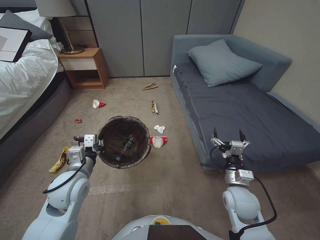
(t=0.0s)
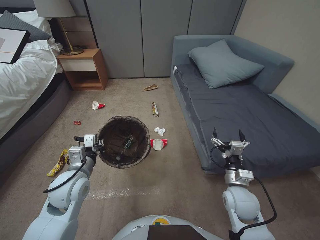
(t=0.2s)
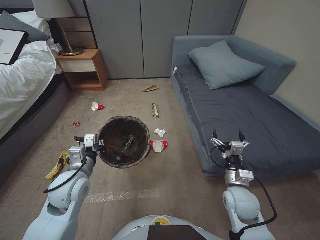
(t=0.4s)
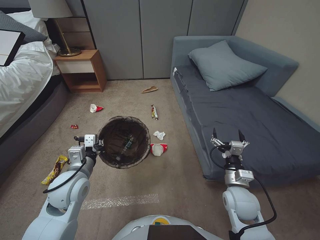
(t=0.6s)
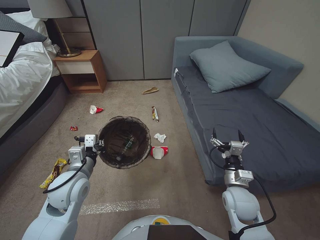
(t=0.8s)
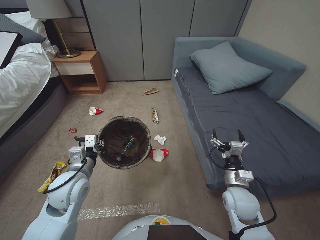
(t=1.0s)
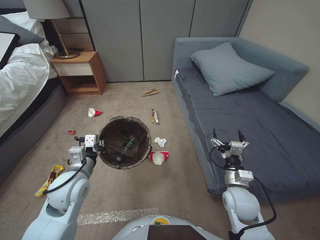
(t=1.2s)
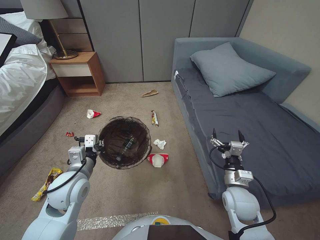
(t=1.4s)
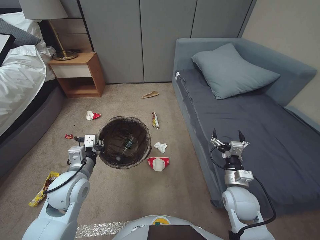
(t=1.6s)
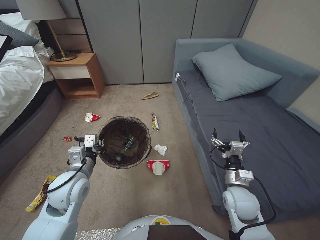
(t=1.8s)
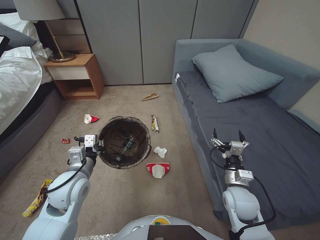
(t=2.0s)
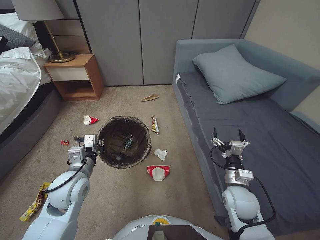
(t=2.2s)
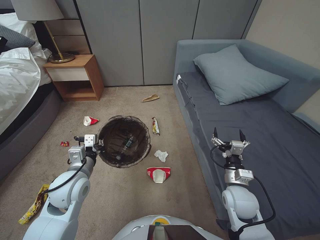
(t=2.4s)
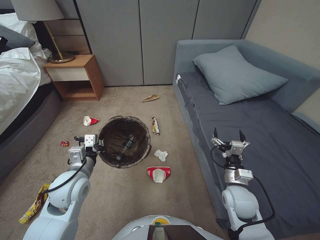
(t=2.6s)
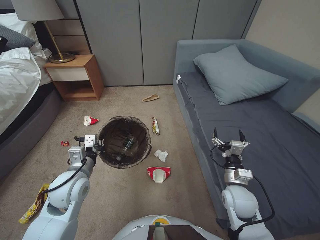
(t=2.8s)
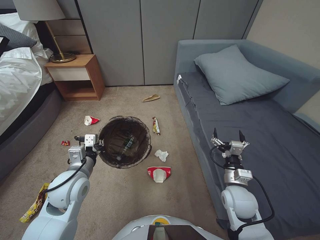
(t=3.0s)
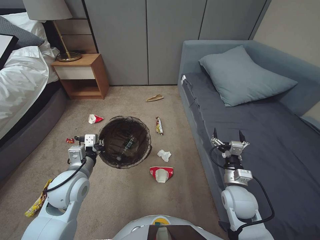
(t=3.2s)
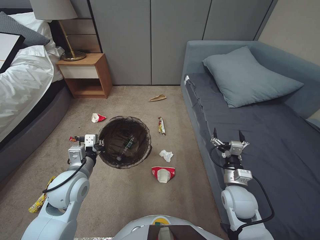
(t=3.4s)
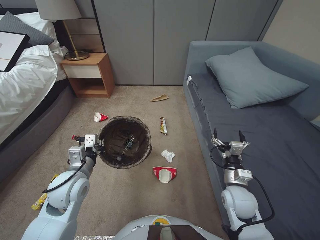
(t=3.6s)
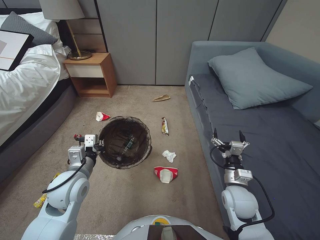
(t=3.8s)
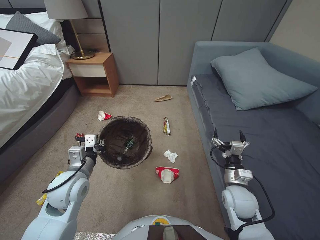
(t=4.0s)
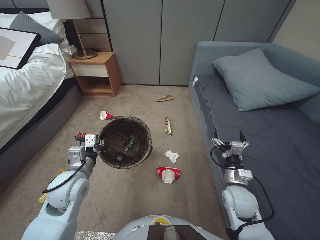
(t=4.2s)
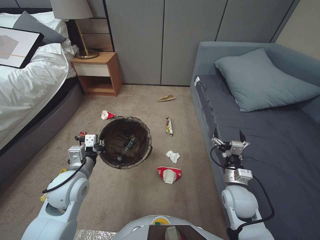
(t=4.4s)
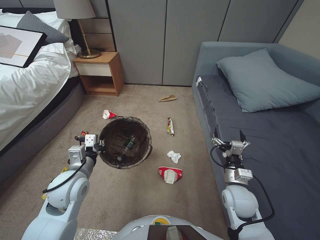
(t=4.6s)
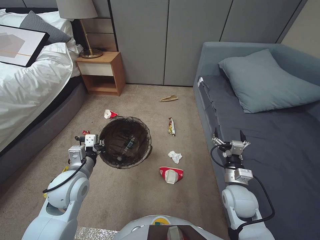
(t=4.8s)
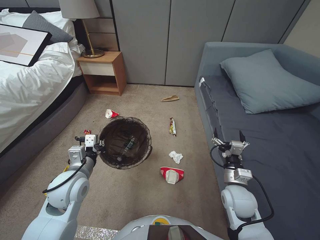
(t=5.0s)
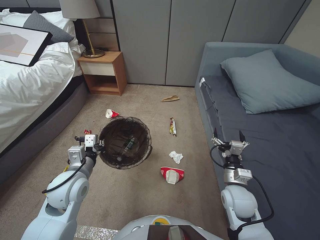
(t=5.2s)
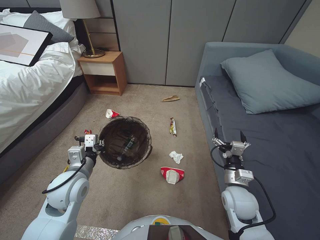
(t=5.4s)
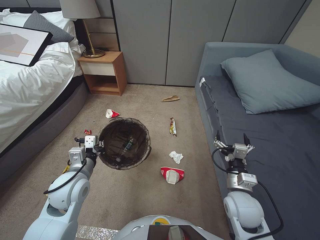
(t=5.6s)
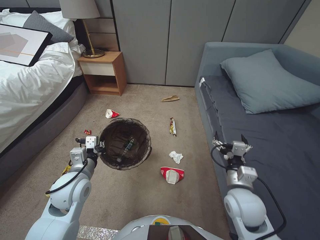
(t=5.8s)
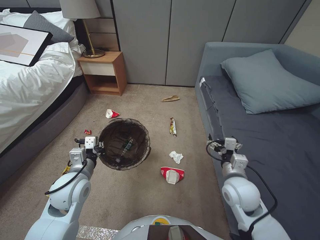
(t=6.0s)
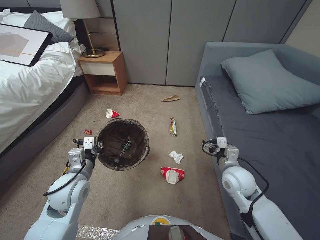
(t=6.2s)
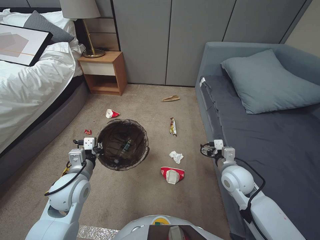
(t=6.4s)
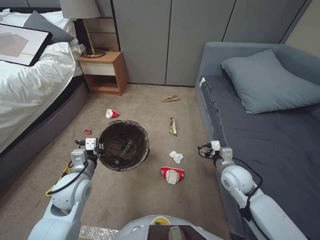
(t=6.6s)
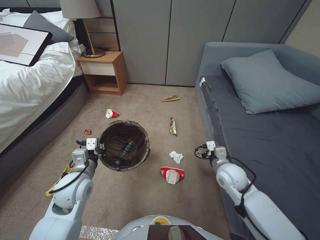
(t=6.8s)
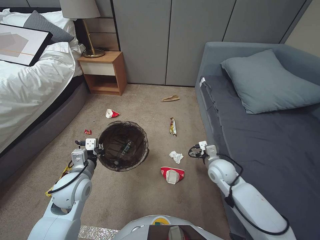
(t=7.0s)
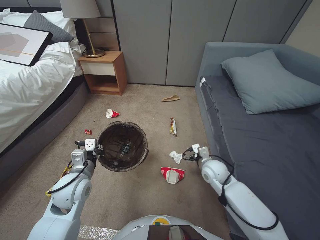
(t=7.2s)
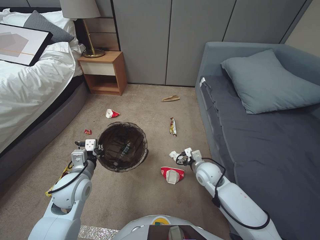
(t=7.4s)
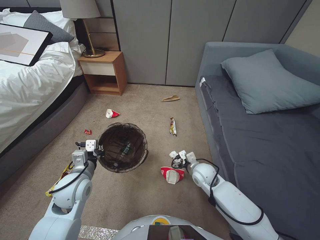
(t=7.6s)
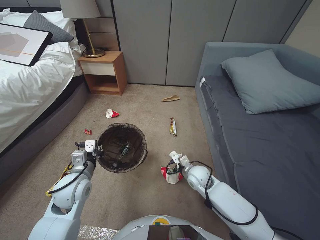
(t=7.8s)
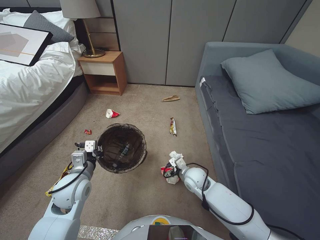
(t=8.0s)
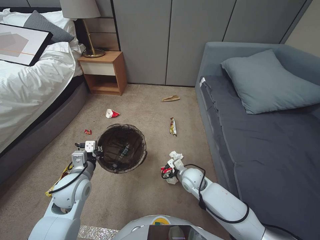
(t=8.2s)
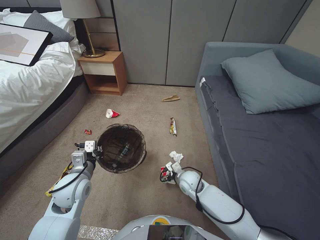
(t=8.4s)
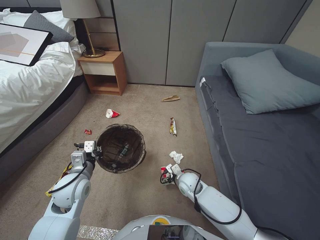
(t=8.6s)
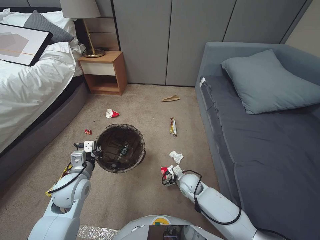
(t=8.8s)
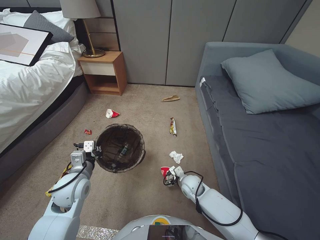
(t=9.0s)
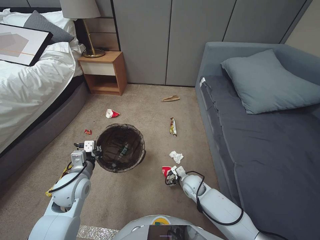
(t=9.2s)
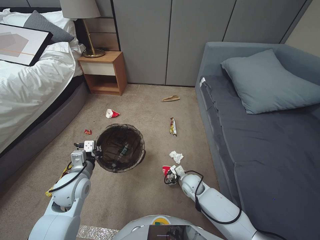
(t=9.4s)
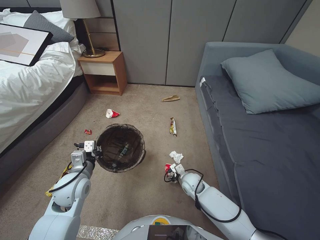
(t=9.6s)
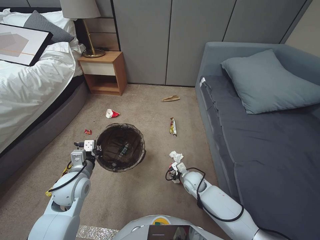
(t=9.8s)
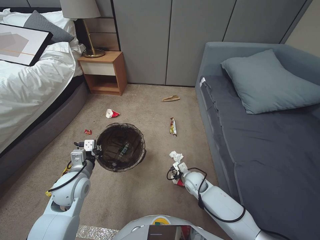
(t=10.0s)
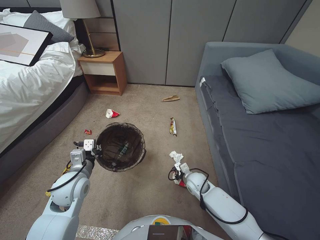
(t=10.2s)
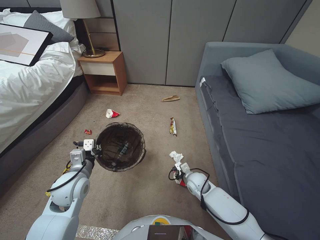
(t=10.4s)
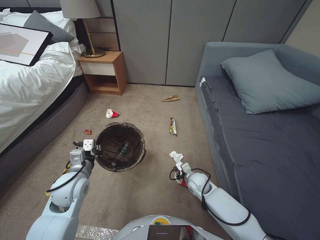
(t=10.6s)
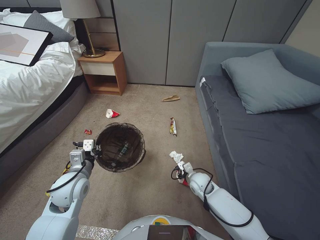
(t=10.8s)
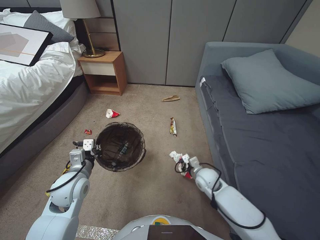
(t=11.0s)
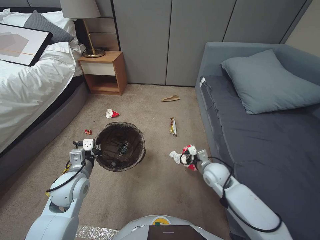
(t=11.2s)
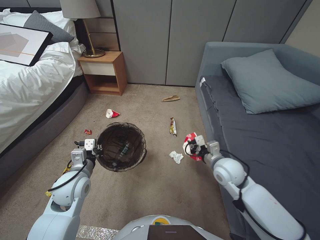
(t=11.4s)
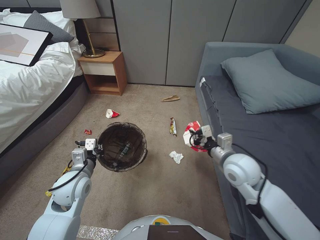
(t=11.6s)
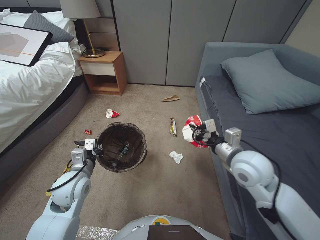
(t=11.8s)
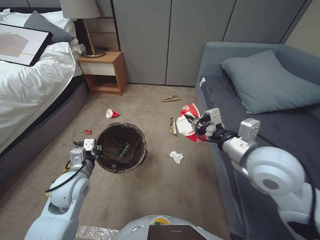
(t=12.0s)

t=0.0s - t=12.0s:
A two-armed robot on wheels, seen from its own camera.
Task of the whole recording: Pick up the trash bin, then pick up the garbage from the floor and place it into the trash bin.
t=0.0s - t=3.0s: Both grippers stay about where they are.
t=4.4s - t=6.0s: The right gripper goes some 5 cm upward.
t=6.0s - t=7.6s: The right gripper heads forward, downward and to the left, covering some 15 cm.
t=7.6s - t=9.0s: The right gripper moves downward, some 10 cm.
t=9.0s - t=10.4s: The right gripper closes.
t=10.4s - t=12.0s: The right gripper goes roughly 35 cm upward.

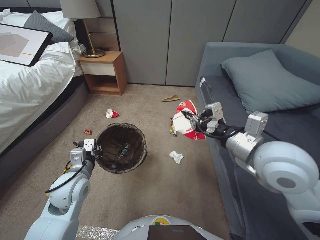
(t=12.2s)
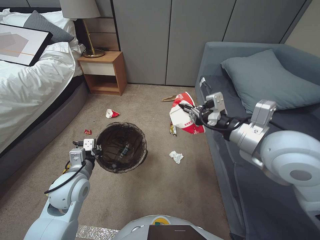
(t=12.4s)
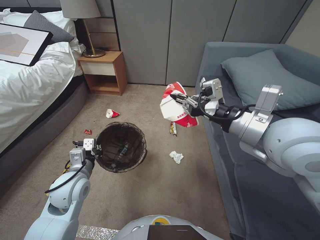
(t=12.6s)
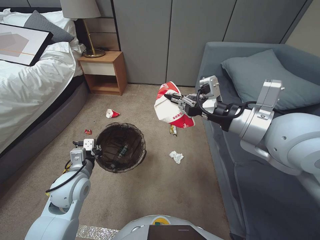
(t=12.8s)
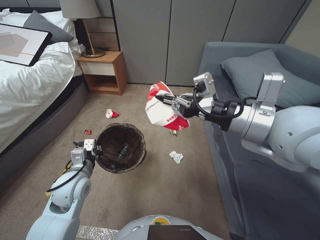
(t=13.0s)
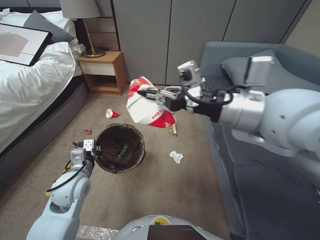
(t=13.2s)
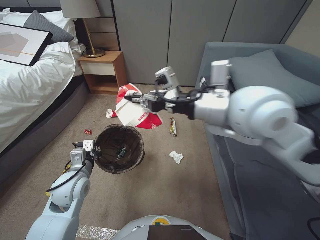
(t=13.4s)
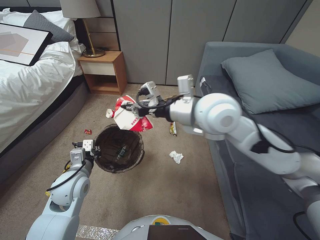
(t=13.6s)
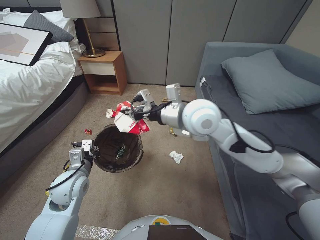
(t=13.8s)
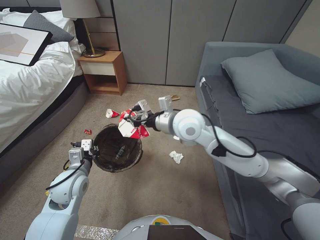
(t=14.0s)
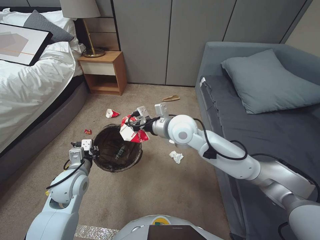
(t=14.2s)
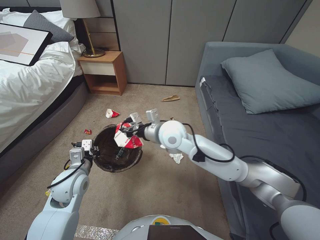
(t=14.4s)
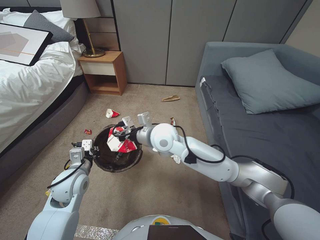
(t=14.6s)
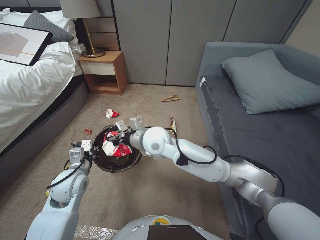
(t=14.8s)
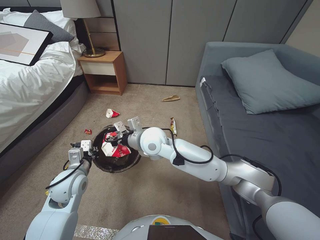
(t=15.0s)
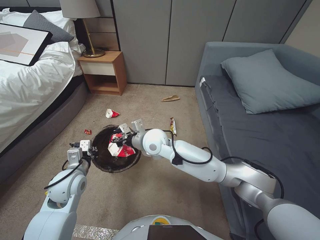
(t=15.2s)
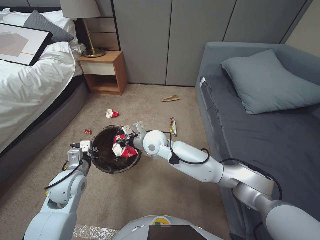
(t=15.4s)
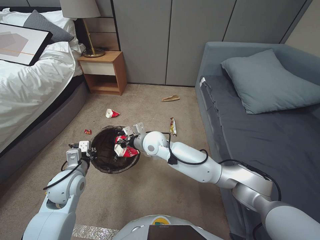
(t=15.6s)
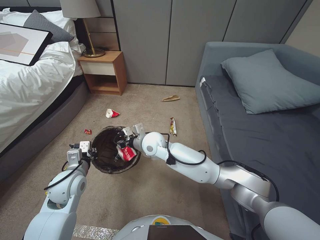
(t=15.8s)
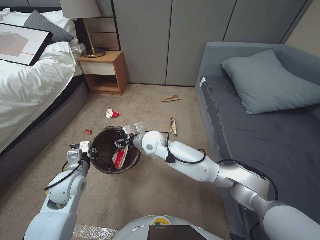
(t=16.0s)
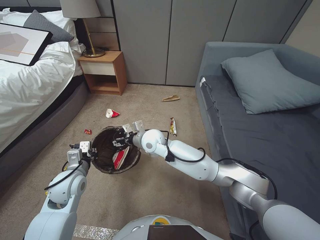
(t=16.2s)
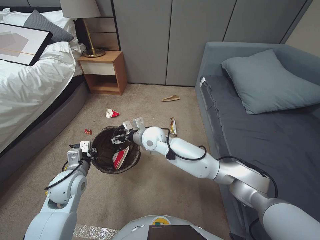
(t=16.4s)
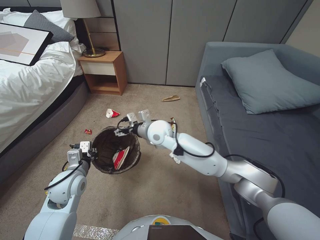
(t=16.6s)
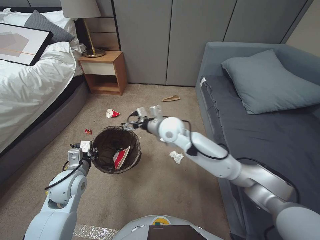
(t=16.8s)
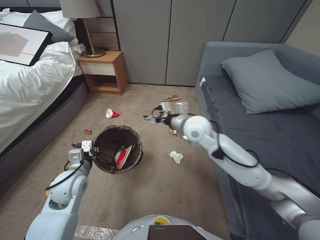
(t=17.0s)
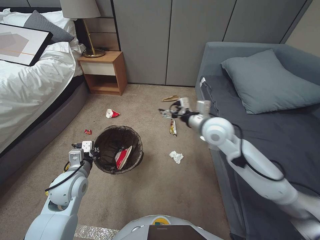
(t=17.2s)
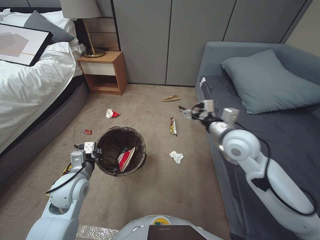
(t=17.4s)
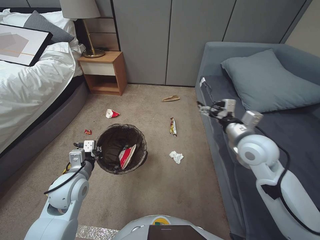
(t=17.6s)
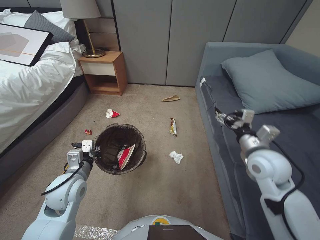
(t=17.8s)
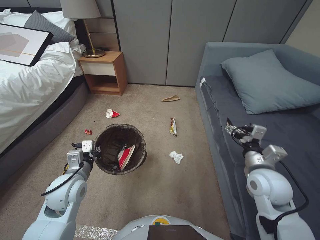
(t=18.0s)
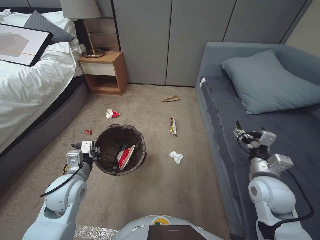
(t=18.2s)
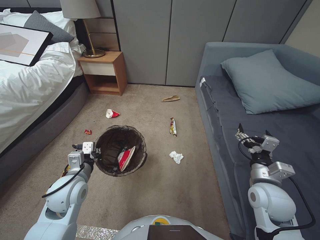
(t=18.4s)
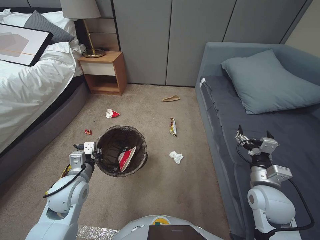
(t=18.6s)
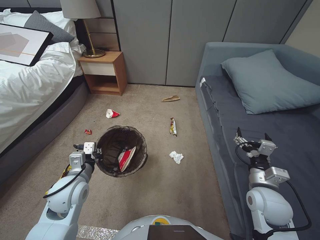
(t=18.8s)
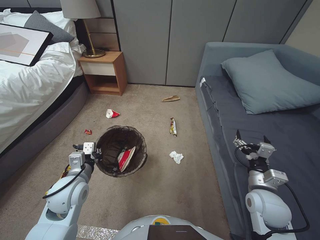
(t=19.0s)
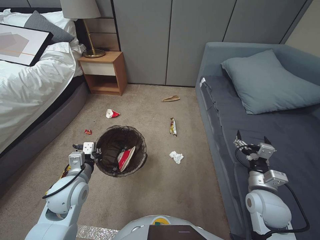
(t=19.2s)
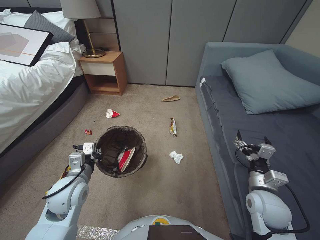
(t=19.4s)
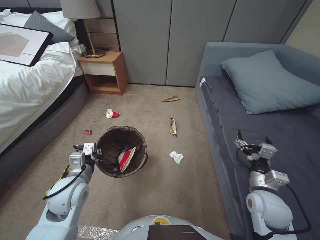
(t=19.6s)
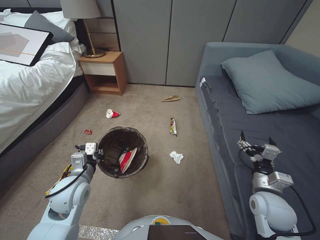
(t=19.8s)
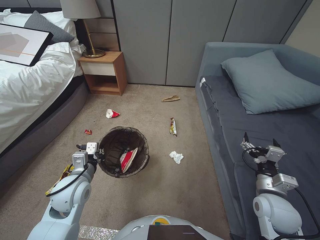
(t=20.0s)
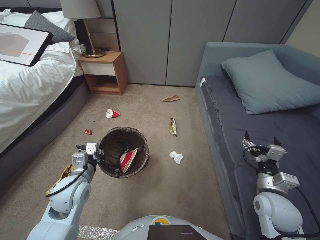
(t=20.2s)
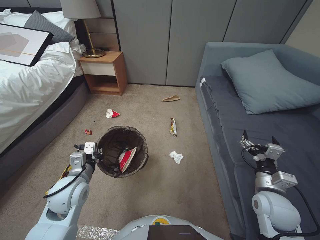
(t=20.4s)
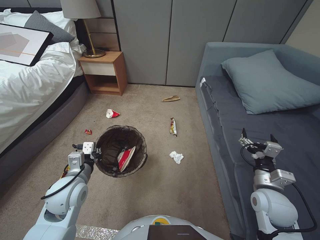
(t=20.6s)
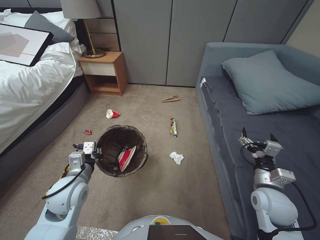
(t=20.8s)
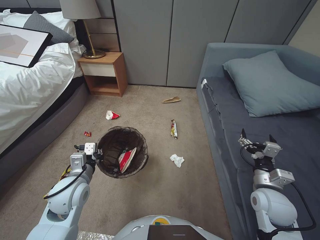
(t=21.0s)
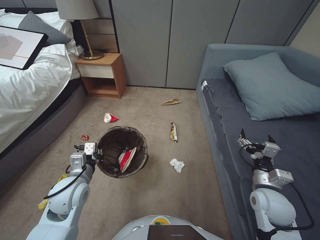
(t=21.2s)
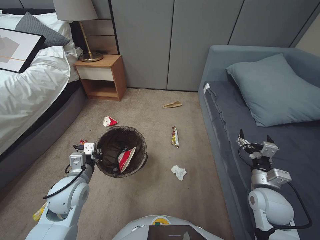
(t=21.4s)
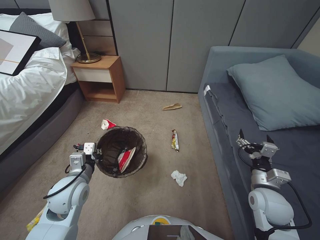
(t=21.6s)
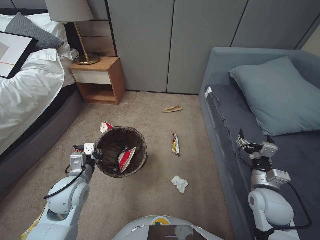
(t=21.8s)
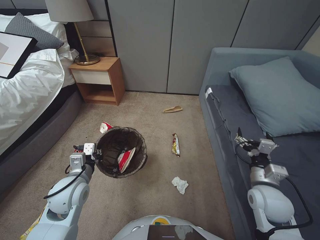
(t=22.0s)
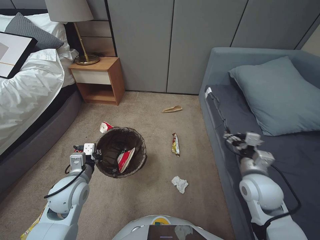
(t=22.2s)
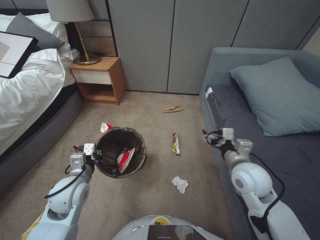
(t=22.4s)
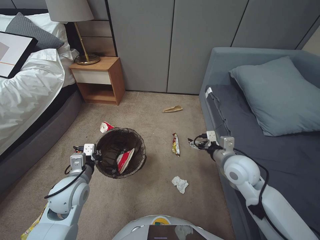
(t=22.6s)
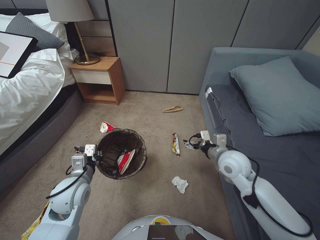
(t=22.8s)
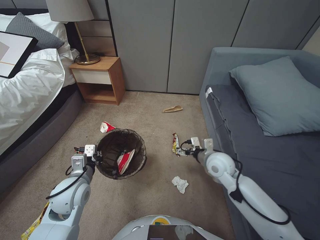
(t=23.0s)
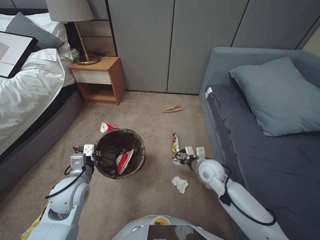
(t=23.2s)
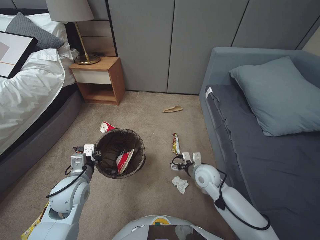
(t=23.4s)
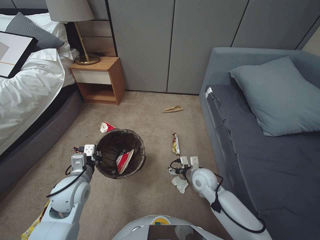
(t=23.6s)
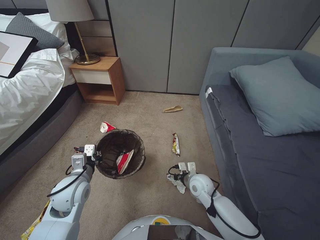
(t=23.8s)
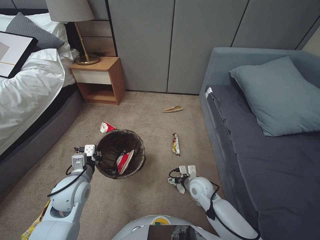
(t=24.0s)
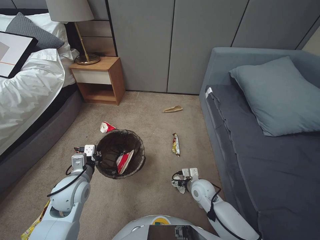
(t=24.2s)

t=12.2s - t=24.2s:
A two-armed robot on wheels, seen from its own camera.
Task of the whole recording: Pick up the trash bin, then pick up the garbage from the floor and place it into the trash bin.
t=12.2s - t=13.8s: The right gripper travels to the left and forward by some 15 cm.
t=13.8s - t=15.2s: The right gripper travels downward and to the left by roughly 20 cm.
t=15.2s - t=16.6s: The right gripper opens up.
t=16.6s - t=18.2s: The right gripper goes some 40 cm to the right and backward.
t=18.2s - t=19.8s: The right gripper travels downward by roughly 5 cm.
t=19.8s - t=21.2s: There are only small adjustments of the grippers.
t=21.2s - t=22.6s: The right gripper travels to the left, upward and forward by some 15 cm.
t=22.6s - t=24.2s: The right gripper is displaced downward by approximately 20 cm.
